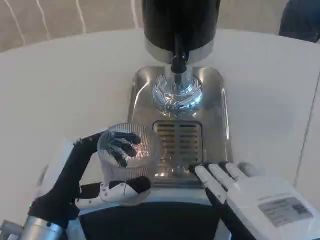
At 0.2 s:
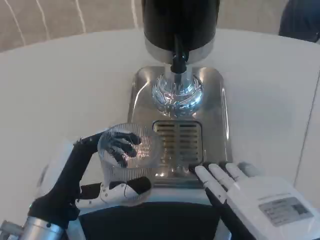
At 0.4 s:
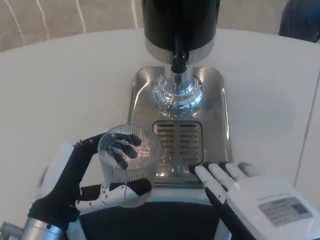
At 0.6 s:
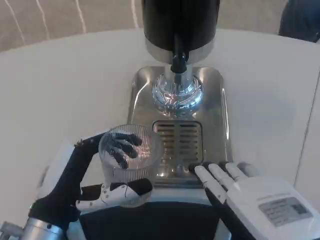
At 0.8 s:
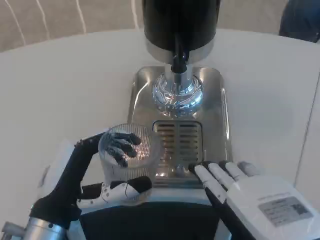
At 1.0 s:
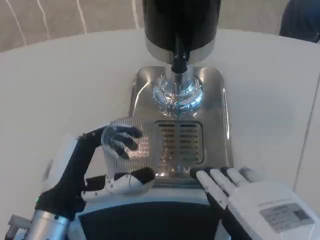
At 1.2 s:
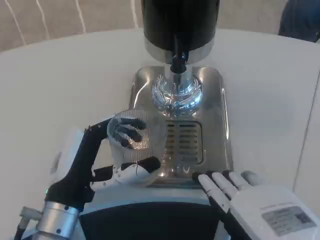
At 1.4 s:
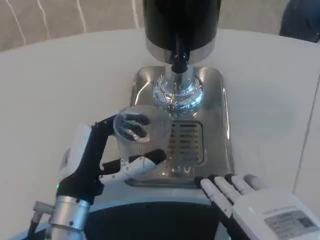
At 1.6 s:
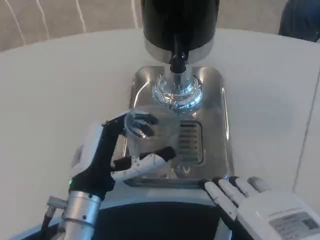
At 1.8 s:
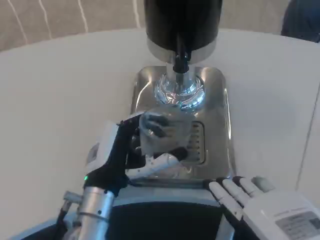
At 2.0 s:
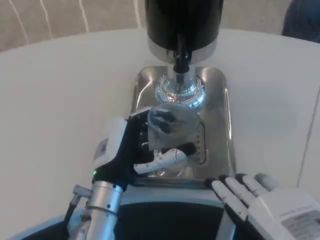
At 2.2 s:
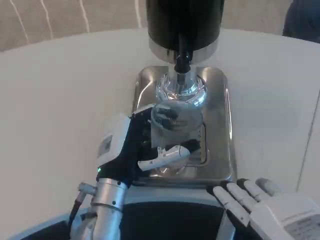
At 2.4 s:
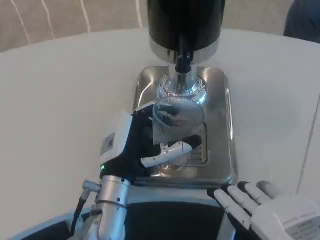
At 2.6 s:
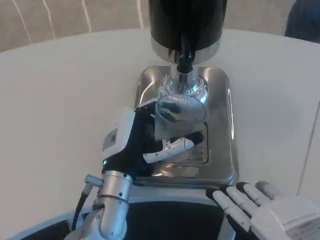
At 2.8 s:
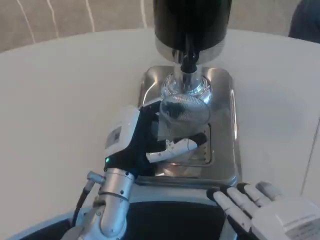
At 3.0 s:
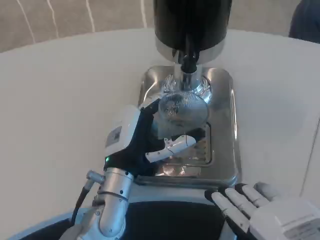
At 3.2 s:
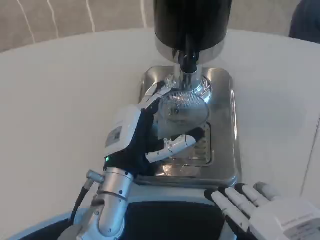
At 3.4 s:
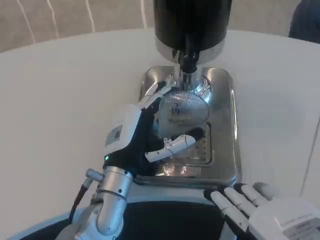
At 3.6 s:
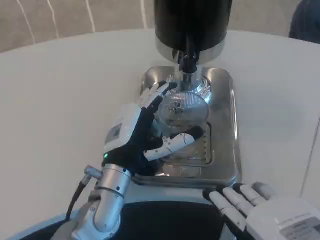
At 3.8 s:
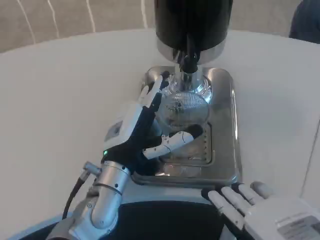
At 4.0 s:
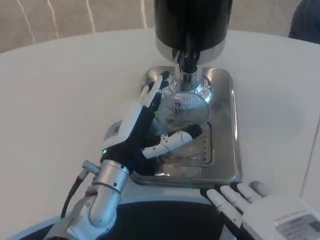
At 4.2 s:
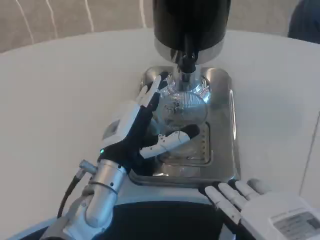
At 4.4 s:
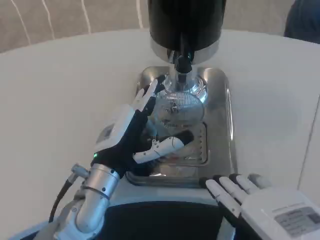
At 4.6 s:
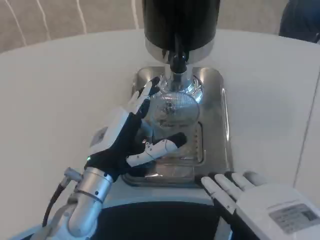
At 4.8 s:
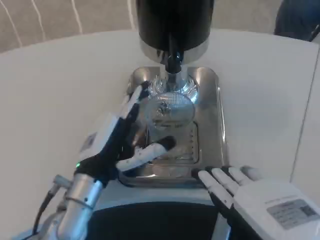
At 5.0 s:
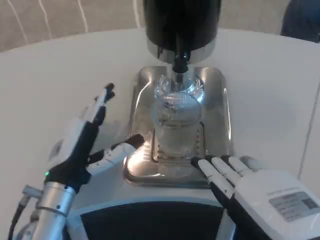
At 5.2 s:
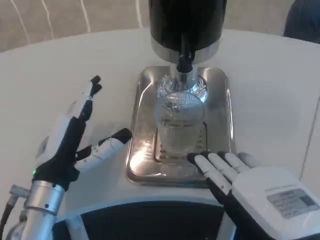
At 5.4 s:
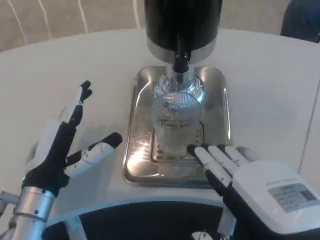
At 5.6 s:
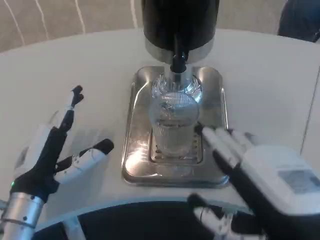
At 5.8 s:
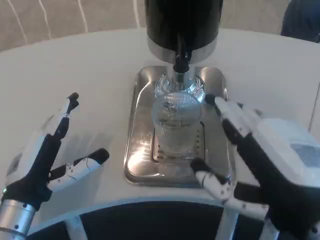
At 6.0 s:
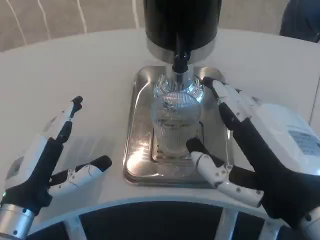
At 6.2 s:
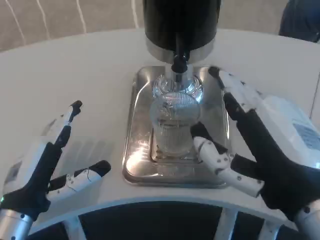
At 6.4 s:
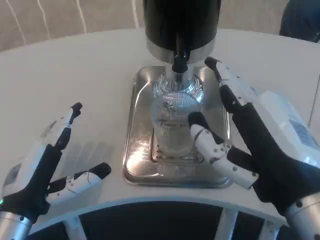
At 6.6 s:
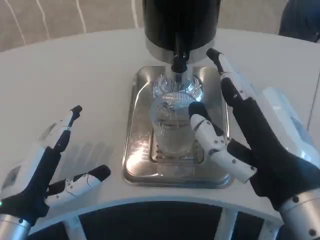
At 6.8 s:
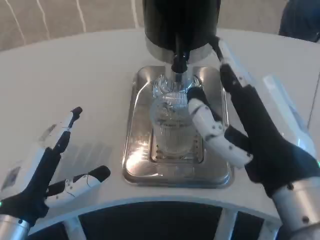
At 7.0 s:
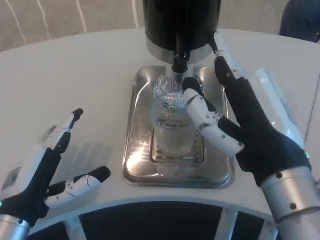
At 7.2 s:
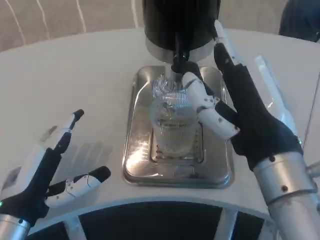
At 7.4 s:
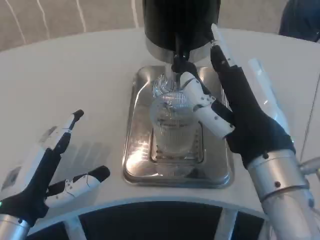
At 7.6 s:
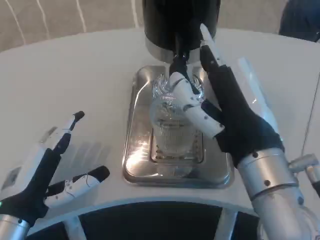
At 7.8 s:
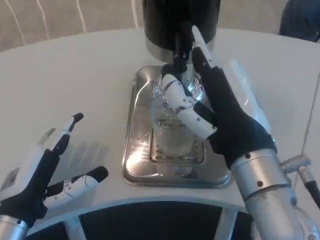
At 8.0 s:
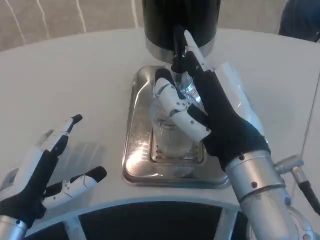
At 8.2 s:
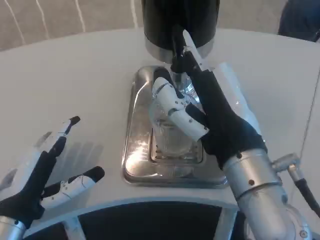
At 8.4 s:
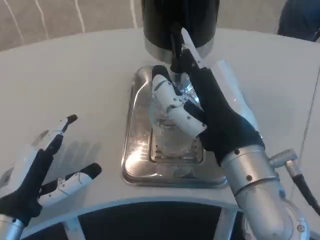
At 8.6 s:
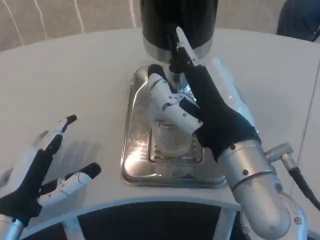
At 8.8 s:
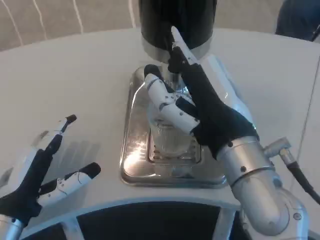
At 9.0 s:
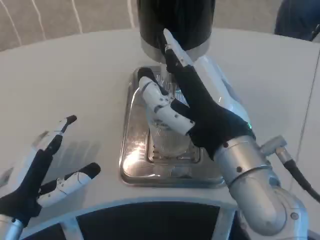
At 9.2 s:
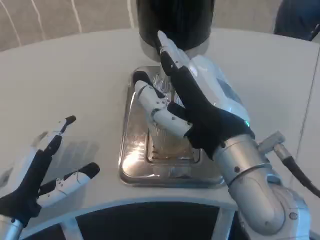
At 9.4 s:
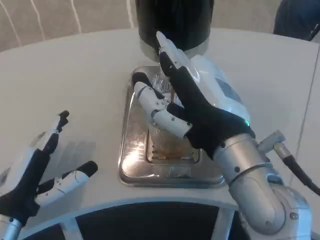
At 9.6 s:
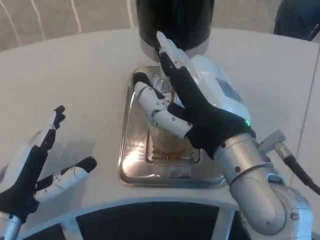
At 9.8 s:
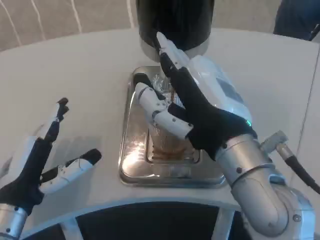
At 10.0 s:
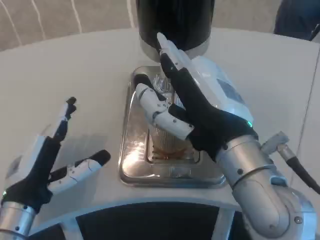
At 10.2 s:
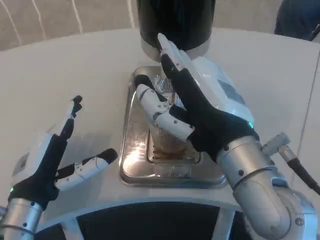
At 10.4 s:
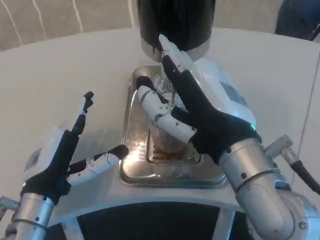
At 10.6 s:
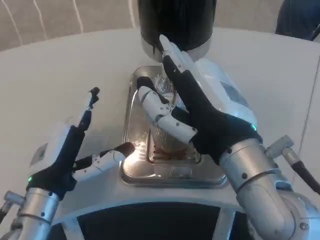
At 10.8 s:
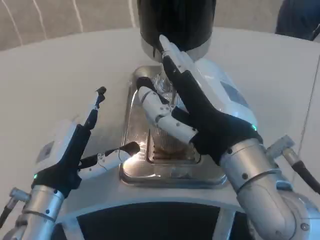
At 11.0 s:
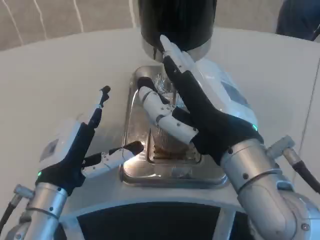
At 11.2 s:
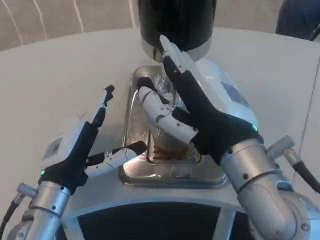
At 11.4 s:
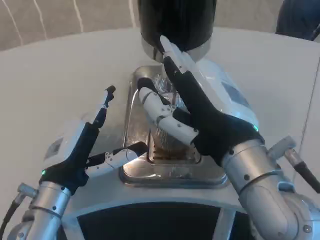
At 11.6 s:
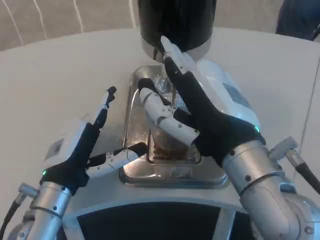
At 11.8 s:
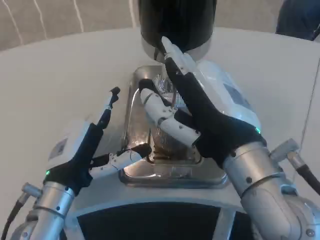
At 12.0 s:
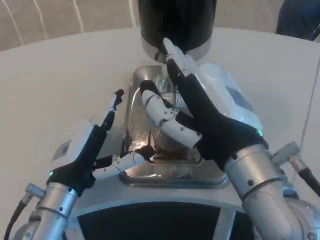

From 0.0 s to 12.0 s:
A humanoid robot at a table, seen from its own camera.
Task of the whole recording: Grasp the cup under the faucet to collect the drink, then remove the cup.
From 0.0 s to 1.6 s: The left hand is displaced forward by some 5 cm.
From 1.6 s to 3.0 s: The left hand moves some 5 cm.
From 3.0 s to 4.4 s: The hands stay close to where they were, moving slightly.
From 4.4 s to 6.0 s: The left hand shifts roughly 10 cm to the left and backward, while the right hand shifts by approximately 5 cm.
From 6.0 s to 7.6 s: The right hand goes roughly 5 cm forward.
From 9.0 s to 10.4 s: The left hand moves roughly 5 cm.
From 10.4 s to 12.0 s: The hands stay close to where they were, moving slightly.

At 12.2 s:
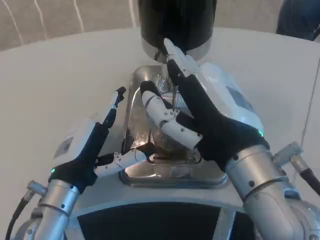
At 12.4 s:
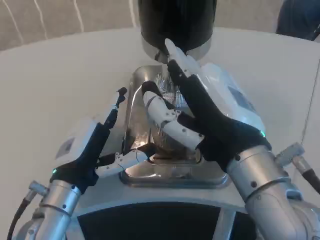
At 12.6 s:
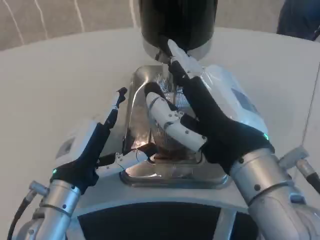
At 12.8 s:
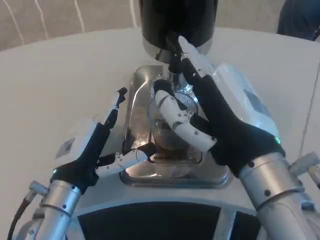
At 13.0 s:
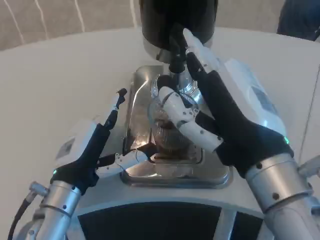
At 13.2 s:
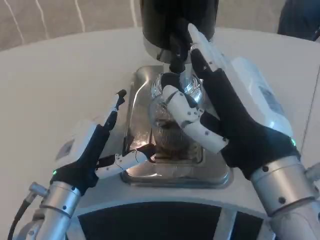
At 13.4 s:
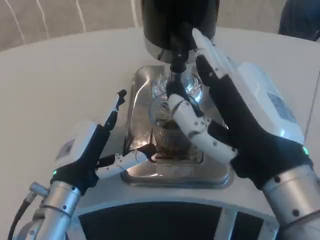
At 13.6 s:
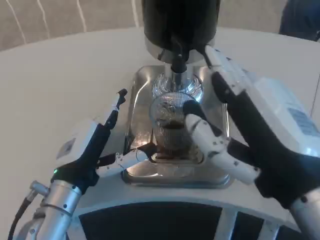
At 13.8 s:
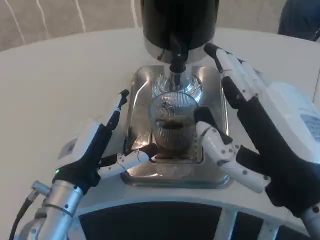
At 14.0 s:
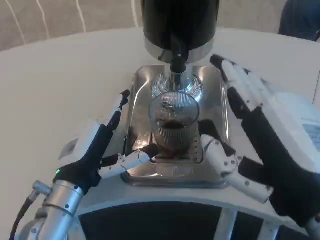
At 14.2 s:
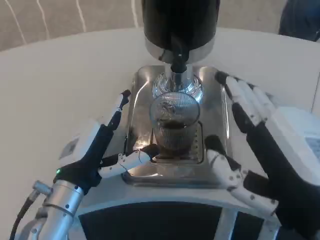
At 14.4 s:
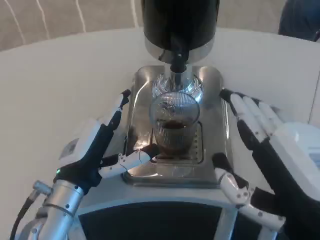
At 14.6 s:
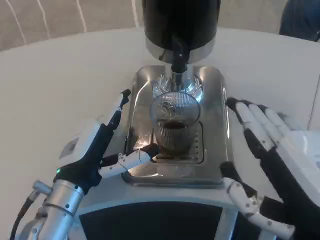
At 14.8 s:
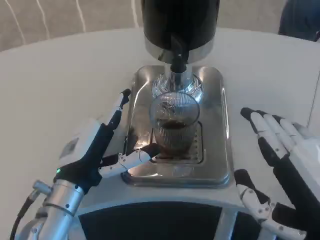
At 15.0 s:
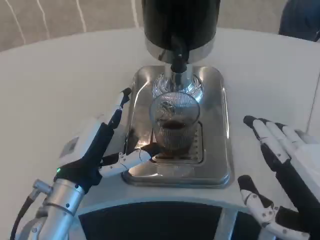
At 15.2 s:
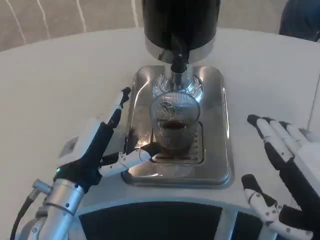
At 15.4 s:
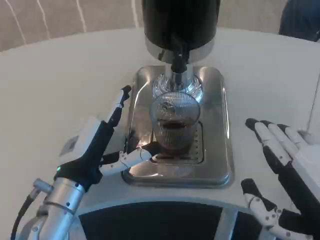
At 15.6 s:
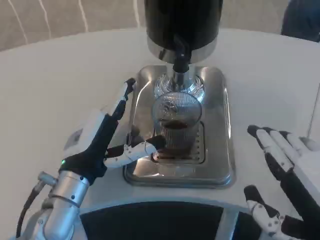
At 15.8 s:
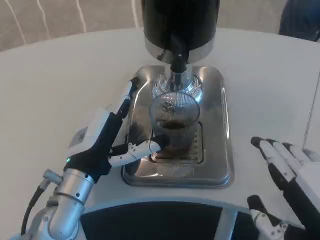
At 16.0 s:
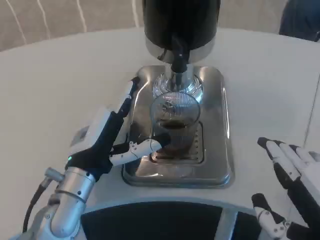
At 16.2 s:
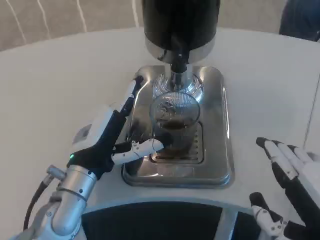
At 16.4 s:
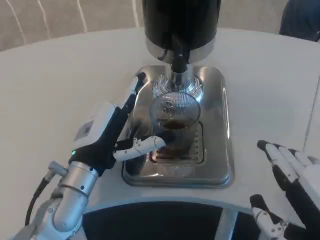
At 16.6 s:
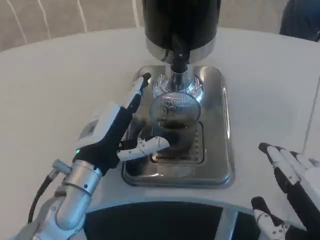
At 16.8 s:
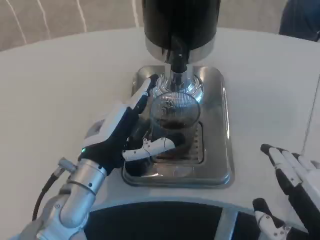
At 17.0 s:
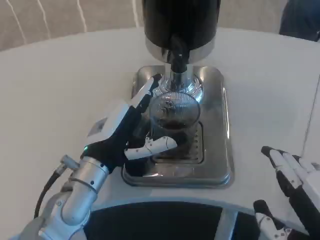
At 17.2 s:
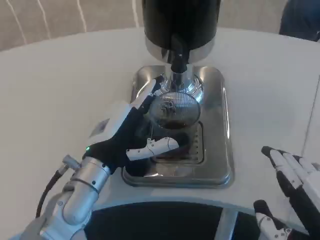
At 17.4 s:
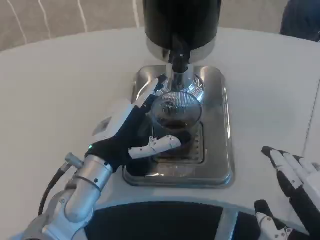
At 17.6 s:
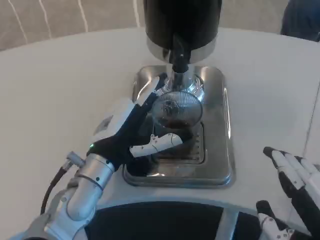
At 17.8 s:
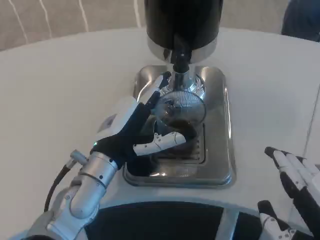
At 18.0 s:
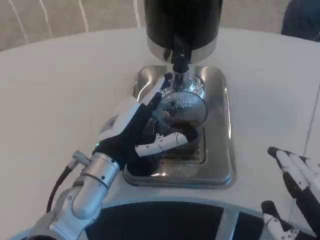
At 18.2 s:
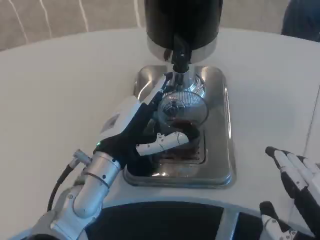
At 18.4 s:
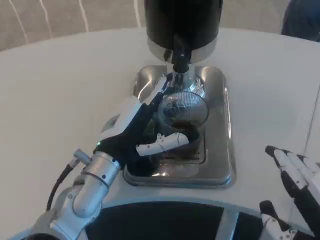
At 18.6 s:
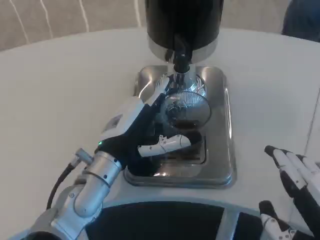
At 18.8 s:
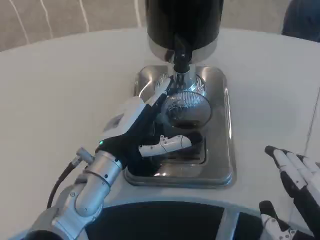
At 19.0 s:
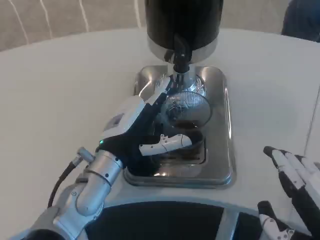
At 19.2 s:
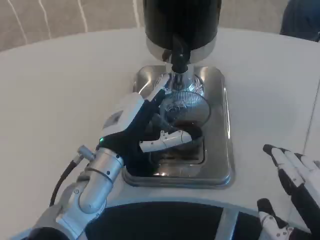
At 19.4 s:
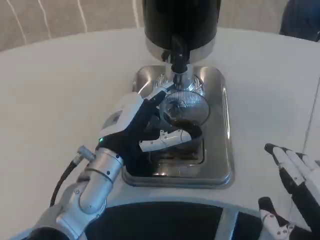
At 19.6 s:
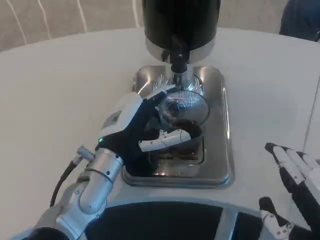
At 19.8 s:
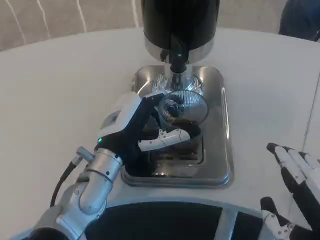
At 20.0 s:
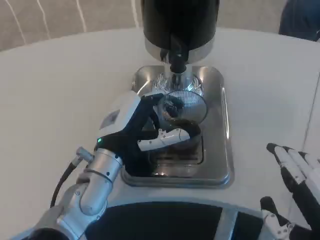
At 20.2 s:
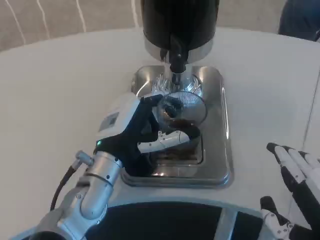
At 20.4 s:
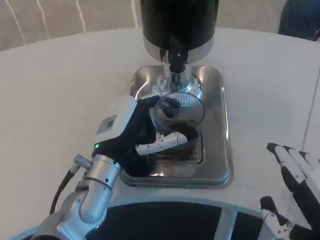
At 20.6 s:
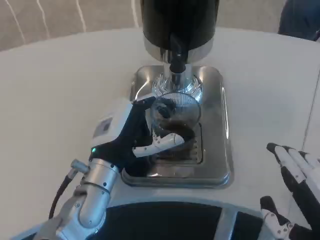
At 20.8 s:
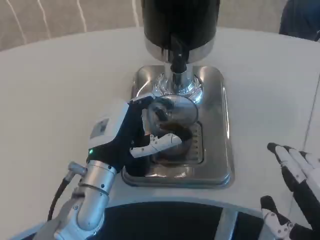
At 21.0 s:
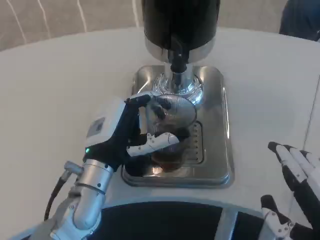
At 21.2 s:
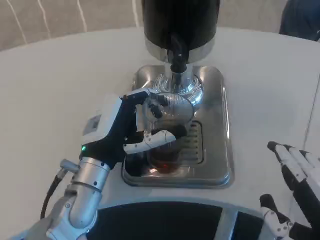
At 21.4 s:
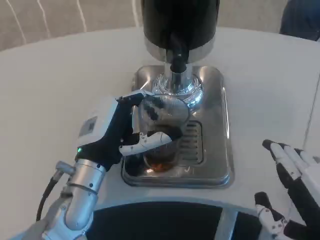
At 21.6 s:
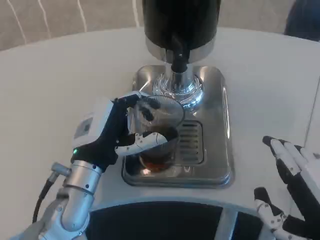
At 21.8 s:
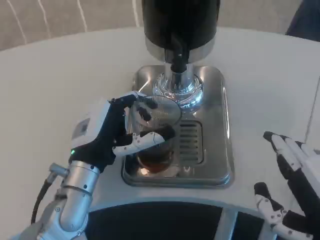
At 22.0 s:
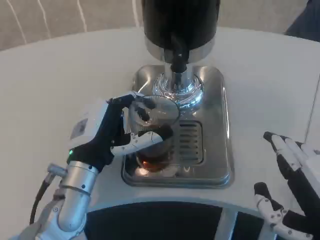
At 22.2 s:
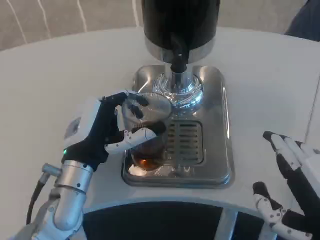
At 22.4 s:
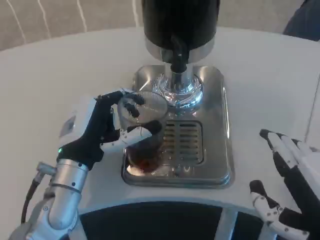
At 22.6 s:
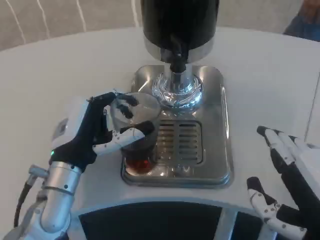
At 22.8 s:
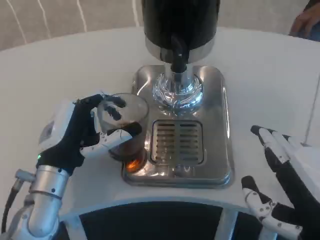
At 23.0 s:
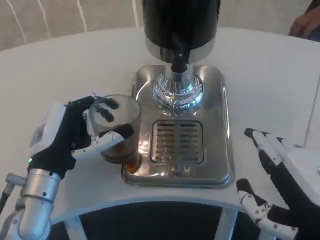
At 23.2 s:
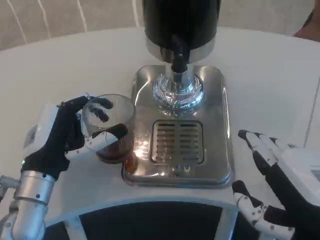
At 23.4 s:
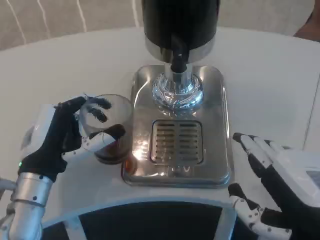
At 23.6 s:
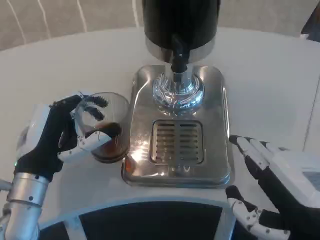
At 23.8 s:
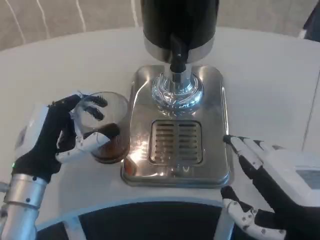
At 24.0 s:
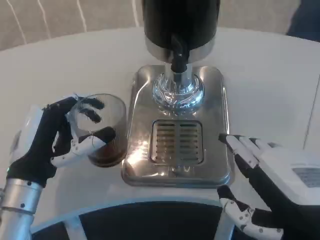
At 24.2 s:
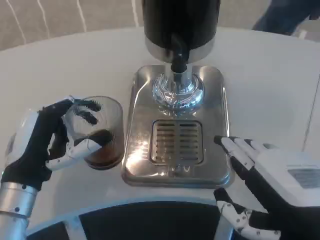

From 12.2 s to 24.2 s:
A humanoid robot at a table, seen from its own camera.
Task of the whole recording: Grasp the cup under the faucet to collect the drink, then remove the cup.
From 12.2 s to 13.8 s: The right hand travels backward and to the right by about 10 cm.
From 13.8 s to 15.2 s: The right hand ends up about 5 cm from where it was.
From 15.2 s to 18.2 s: The hands move only a little.
From 18.2 s to 19.8 s: Both hands stay put.
From 19.8 s to 22.6 s: The hands make only small movements.
From 22.6 s to 24.2 s: The left hand changes place by approximately 5 cm.
